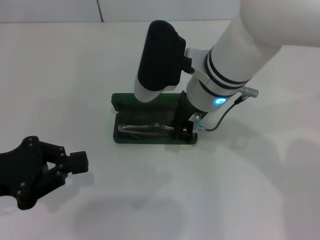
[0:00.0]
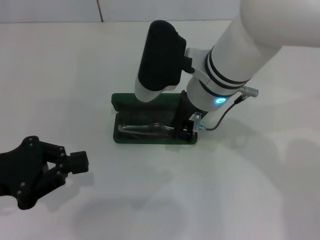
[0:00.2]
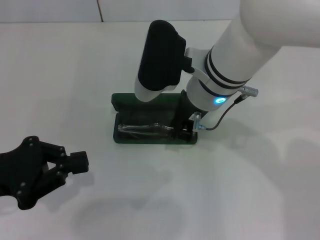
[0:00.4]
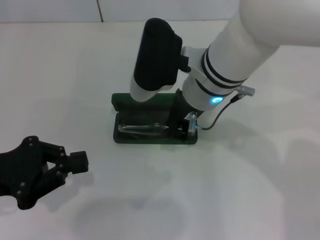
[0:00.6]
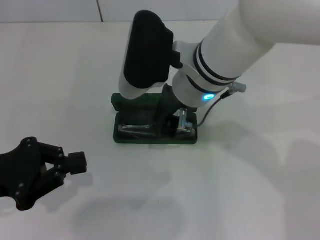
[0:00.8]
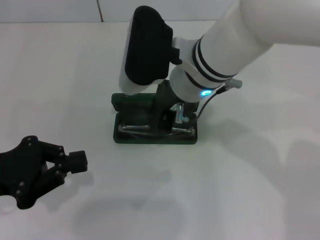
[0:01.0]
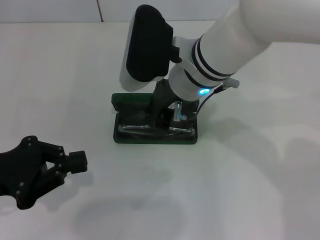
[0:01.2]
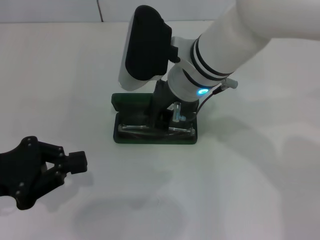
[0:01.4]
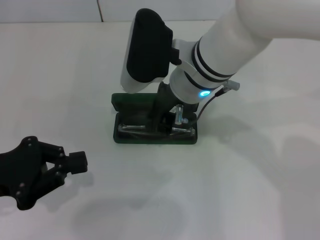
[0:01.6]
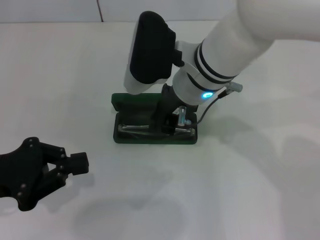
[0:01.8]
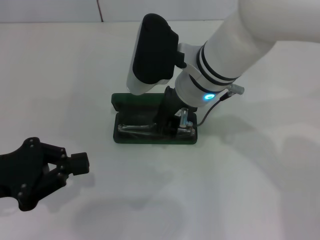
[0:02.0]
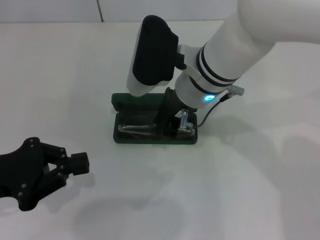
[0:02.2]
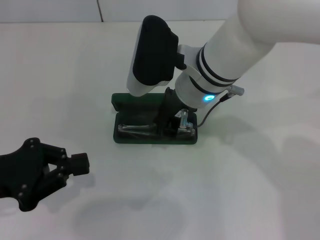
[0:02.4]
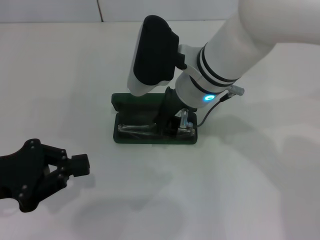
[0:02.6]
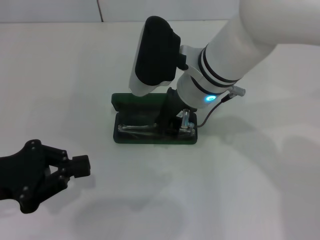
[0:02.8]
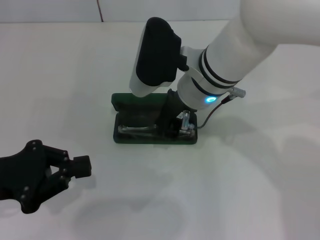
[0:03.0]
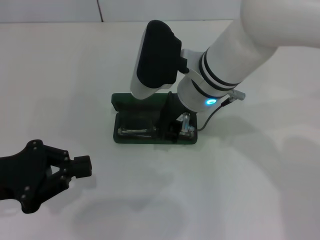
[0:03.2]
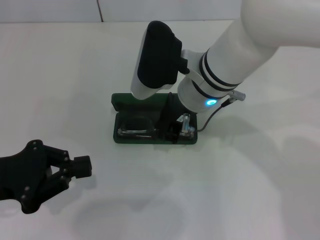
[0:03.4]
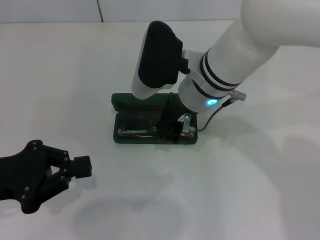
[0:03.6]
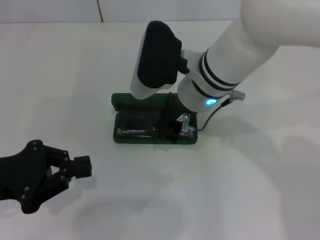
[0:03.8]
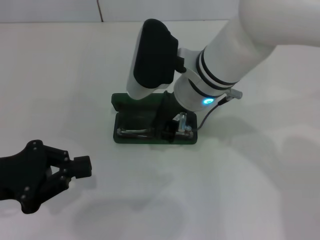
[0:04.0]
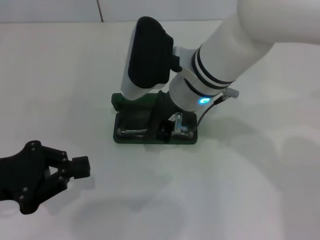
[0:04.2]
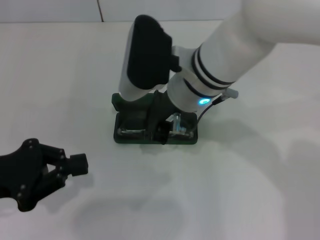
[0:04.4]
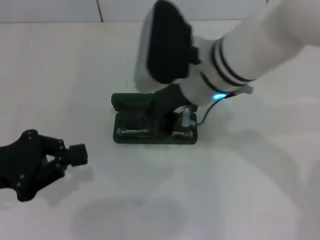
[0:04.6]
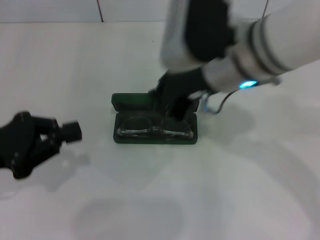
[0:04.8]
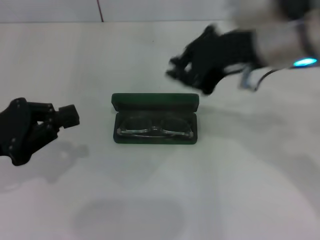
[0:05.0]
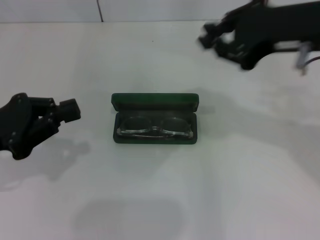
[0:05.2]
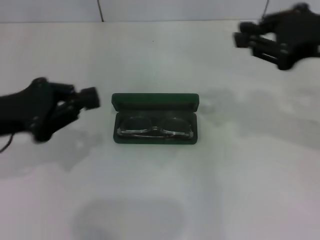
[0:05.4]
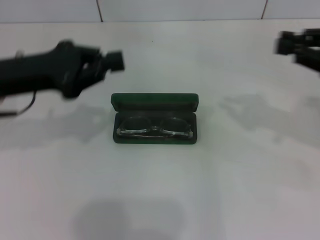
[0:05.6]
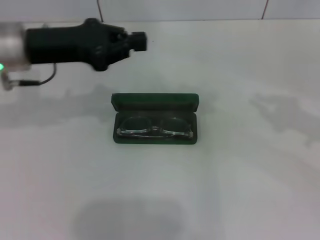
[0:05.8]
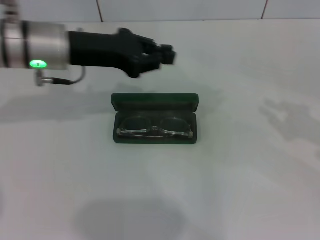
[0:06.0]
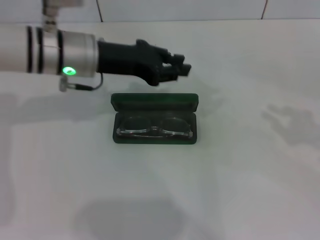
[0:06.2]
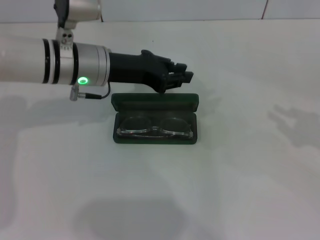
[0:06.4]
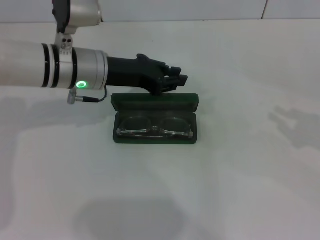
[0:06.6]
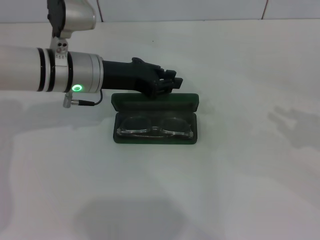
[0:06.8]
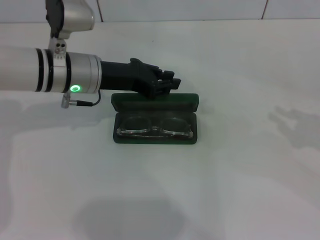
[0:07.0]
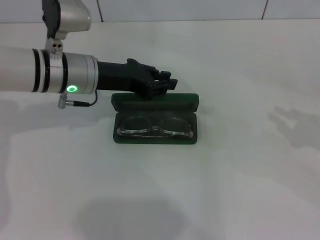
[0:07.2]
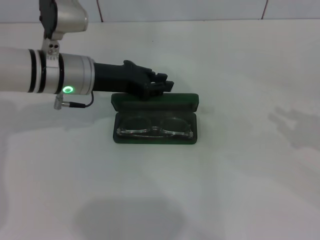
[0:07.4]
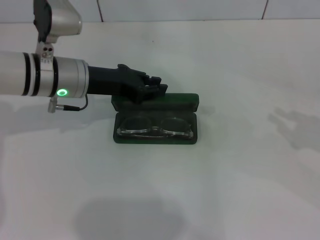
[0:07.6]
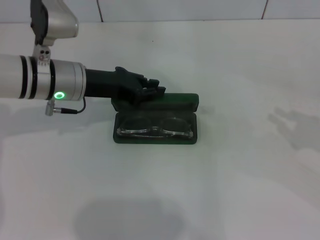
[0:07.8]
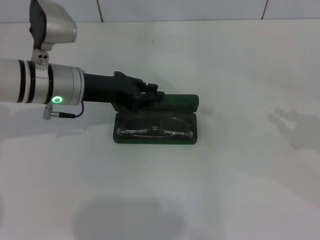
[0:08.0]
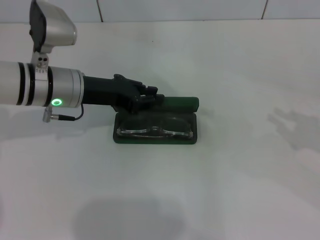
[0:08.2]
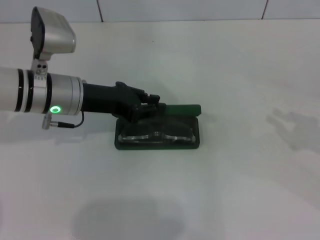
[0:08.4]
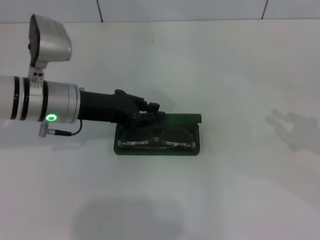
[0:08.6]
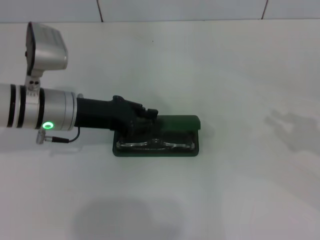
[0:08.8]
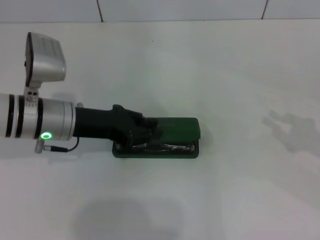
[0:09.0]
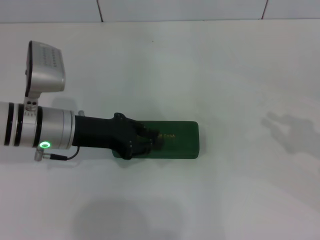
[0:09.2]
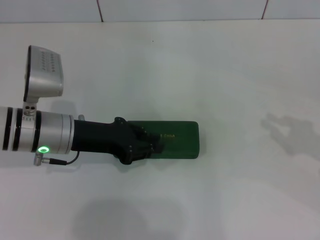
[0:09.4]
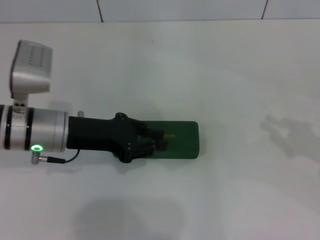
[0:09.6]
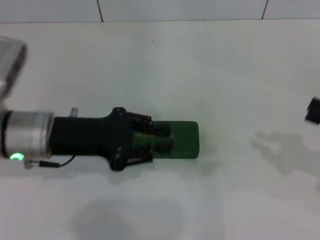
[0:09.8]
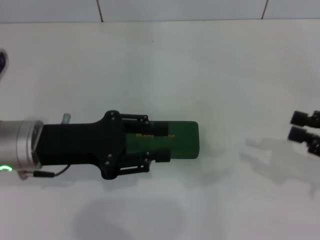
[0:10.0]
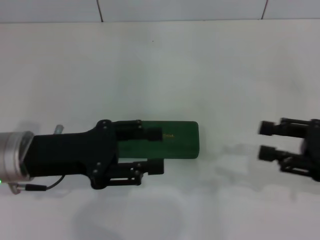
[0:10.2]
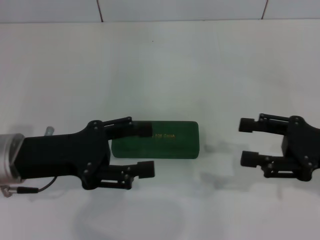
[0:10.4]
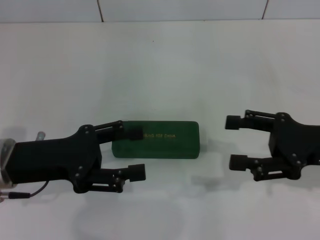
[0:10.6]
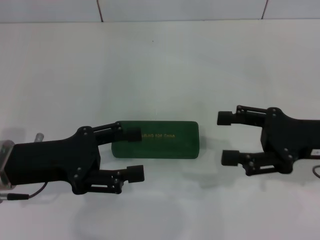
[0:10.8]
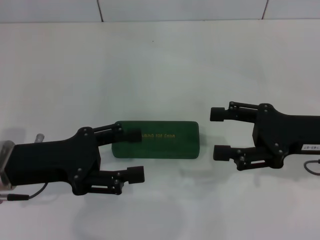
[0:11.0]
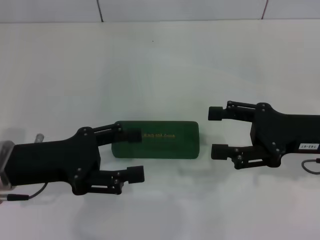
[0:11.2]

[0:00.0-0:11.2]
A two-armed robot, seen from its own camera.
Step, 0:00.0 to 0:03.8: Put the glasses into the case with your right hand.
Step, 0:04.0 to 0:09.0: Close the glasses case with your left hand.
0:00.0 to 0:03.2: The grippers make only small movements.
0:03.2 to 0:04.8: The right gripper is displaced upward by about 5 cm.
0:04.8 to 0:06.4: The right gripper moves to the right, approximately 30 cm. Meanwhile the left gripper heads to the right and forward, covering approximately 20 cm.
0:06.4 to 0:08.0: The grippers stay close to where they were, moving slightly.
0:08.0 to 0:09.6: The left gripper travels backward by about 5 cm.
0:09.6 to 0:11.2: The right gripper heads to the left, covering about 10 cm, and opens up. Meanwhile the left gripper is displaced backward by roughly 5 cm, and opens up.
